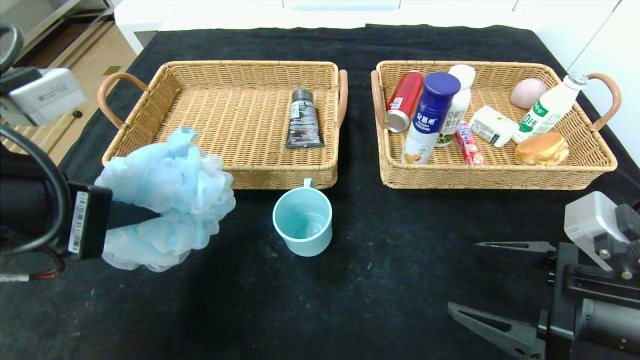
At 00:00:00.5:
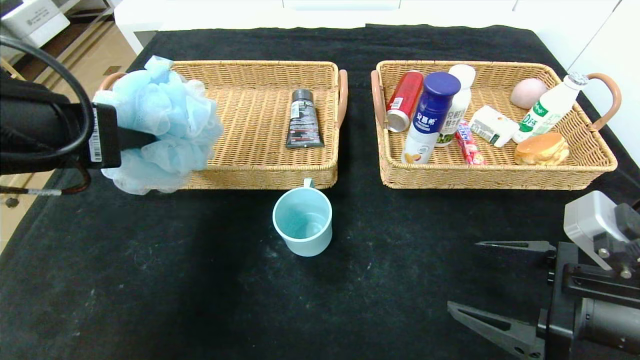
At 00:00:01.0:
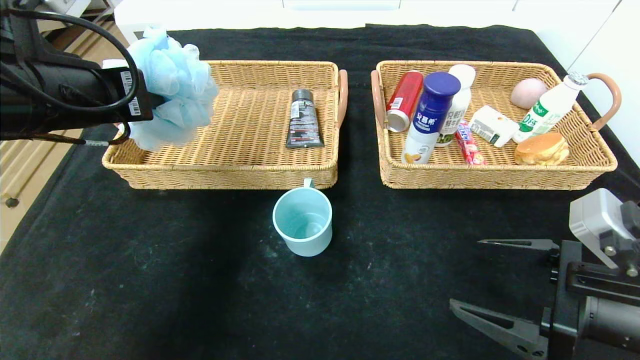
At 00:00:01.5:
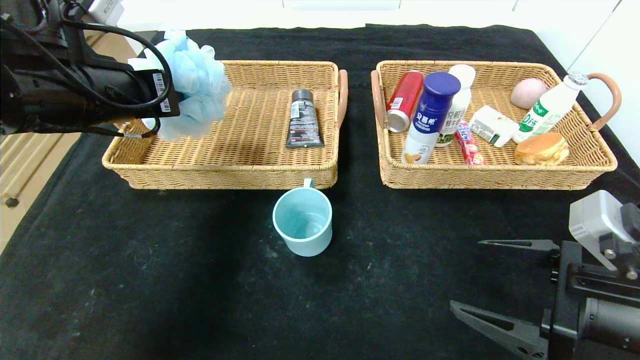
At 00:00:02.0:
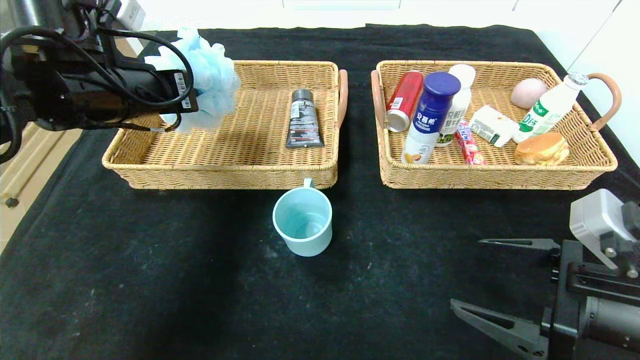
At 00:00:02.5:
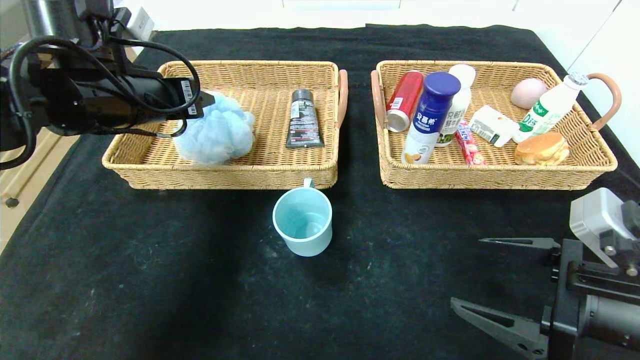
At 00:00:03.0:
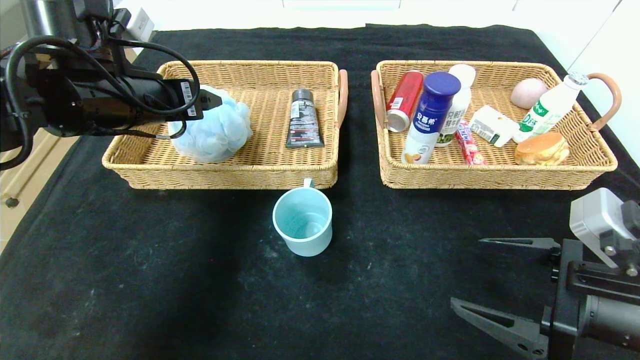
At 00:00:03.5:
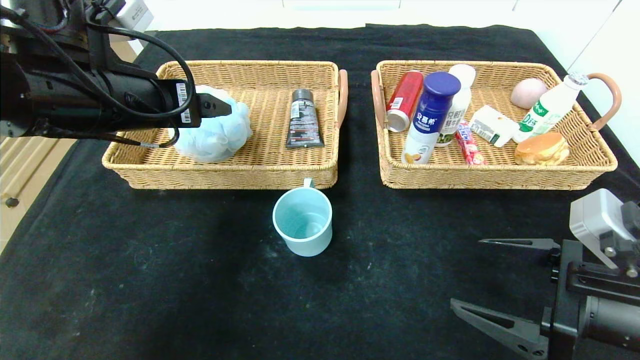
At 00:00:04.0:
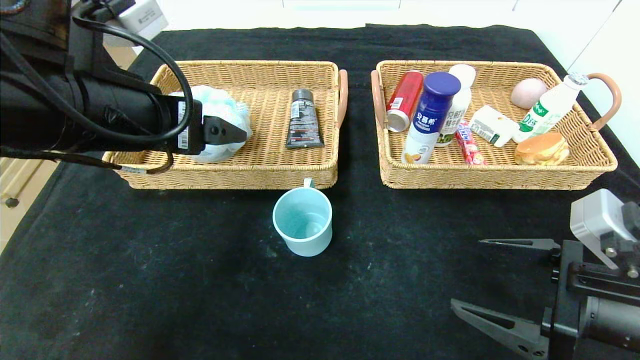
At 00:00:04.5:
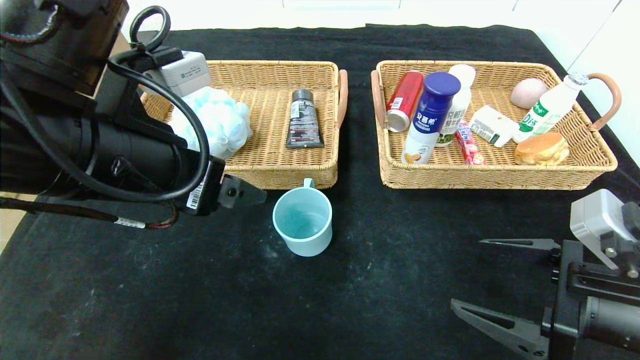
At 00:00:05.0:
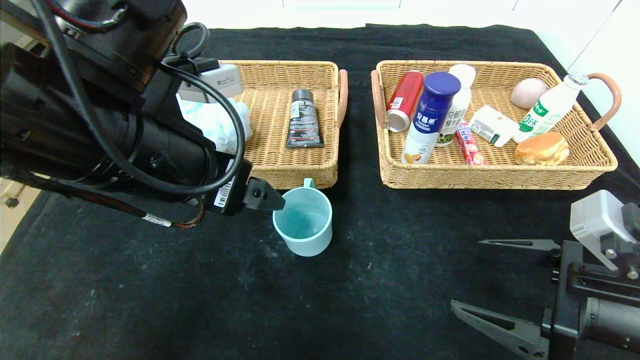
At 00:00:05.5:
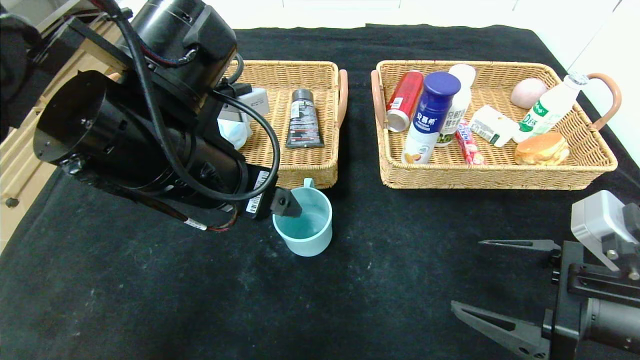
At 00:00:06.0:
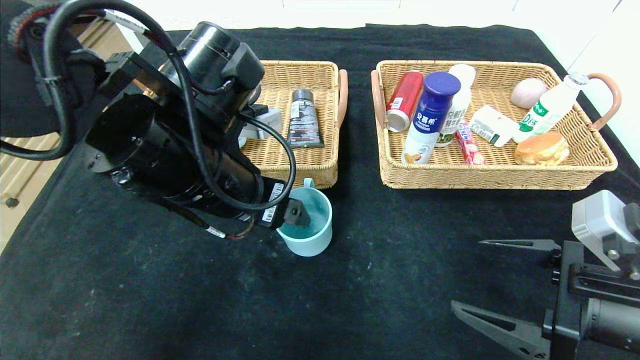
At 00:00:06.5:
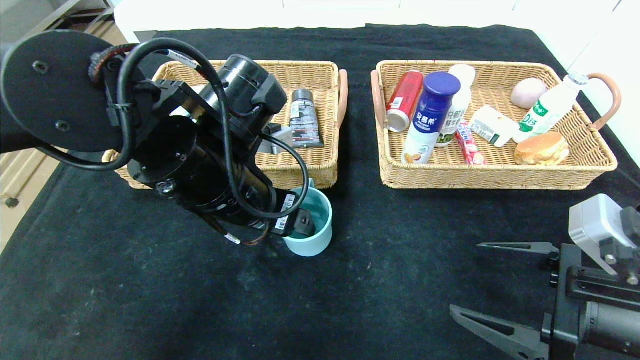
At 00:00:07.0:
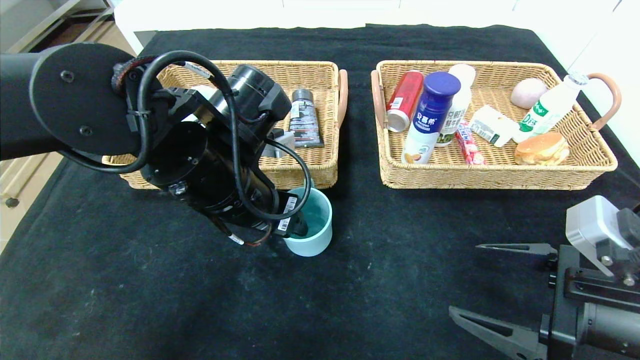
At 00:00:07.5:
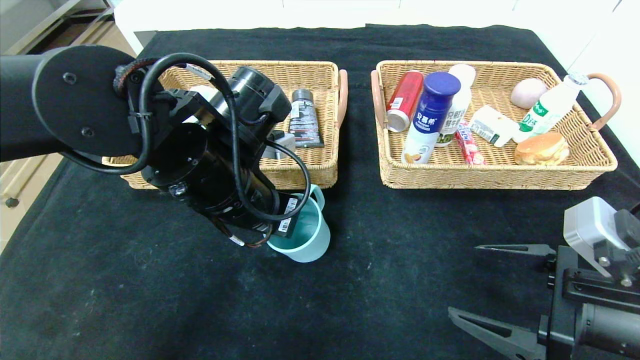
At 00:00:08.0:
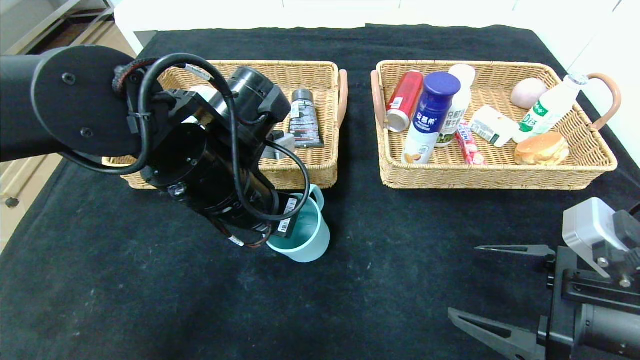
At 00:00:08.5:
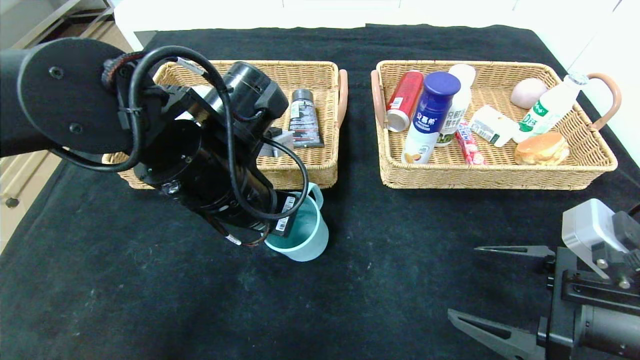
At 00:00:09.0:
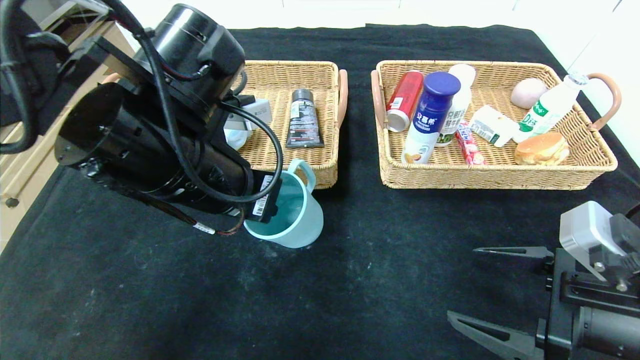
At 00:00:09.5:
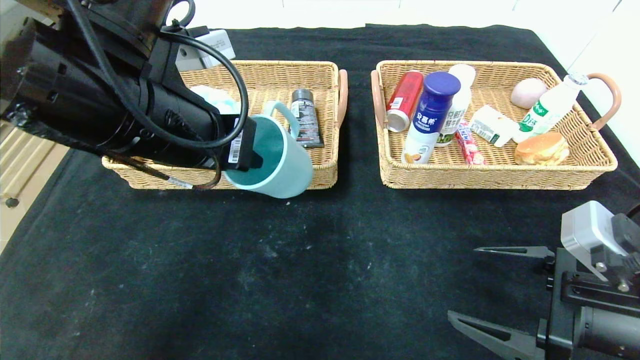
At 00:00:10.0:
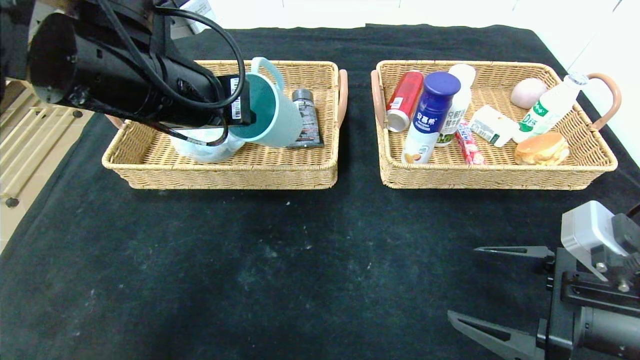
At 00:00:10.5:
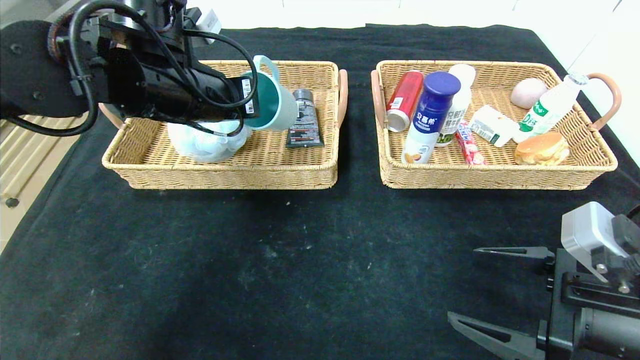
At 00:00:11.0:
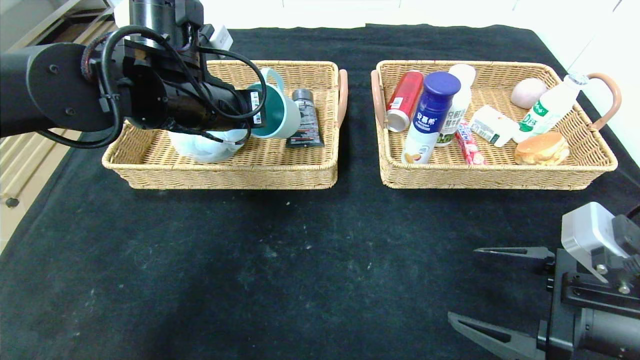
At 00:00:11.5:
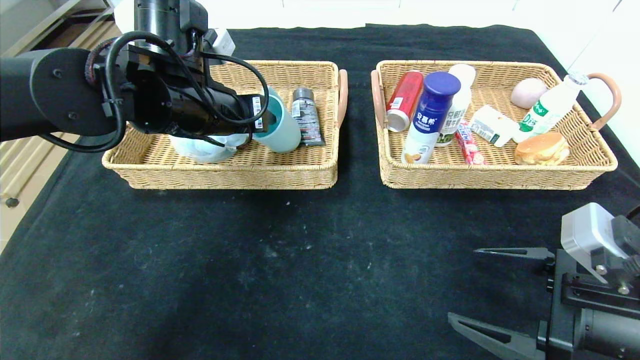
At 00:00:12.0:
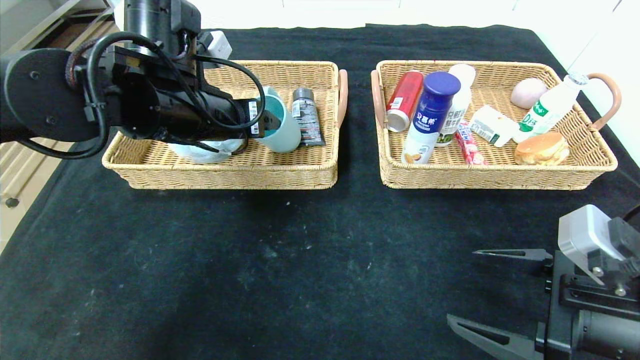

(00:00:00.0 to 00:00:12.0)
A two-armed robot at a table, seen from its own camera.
Step, 00:00:00.0 - 00:00:04.5: Pick up the bath ball and put it in the left basket.
00:00:00.0 - 00:00:02.0: The left gripper is displaced forward by about 15 cm.
00:00:02.0 - 00:00:04.0: The left gripper heads backward, covering about 10 cm, and opens up.
00:00:04.0 - 00:00:06.0: The left gripper heads to the right and downward, covering about 10 cm.
00:00:06.0 - 00:00:08.0: The left gripper closes its fingers.
00:00:08.0 - 00:00:10.0: The left gripper is displaced upward and to the left by some 10 cm.
00:00:10.0 - 00:00:12.0: The left gripper ends up about 5 cm from where it was, and opens.

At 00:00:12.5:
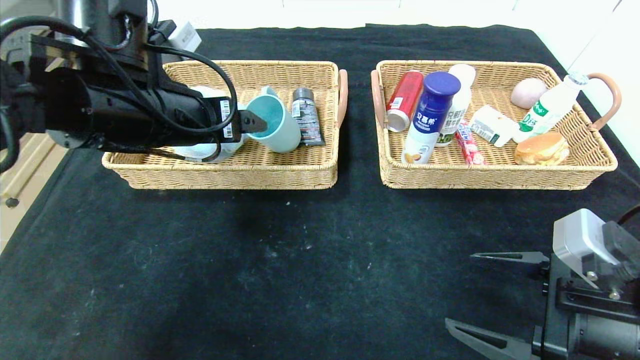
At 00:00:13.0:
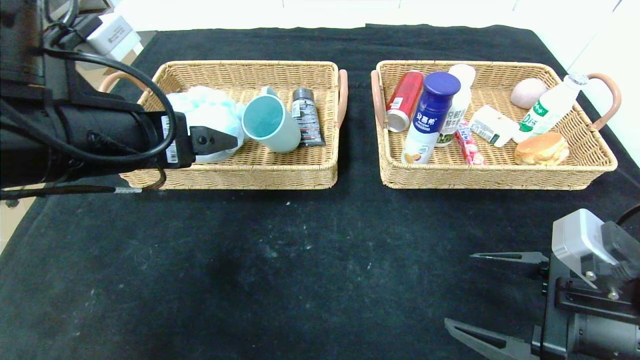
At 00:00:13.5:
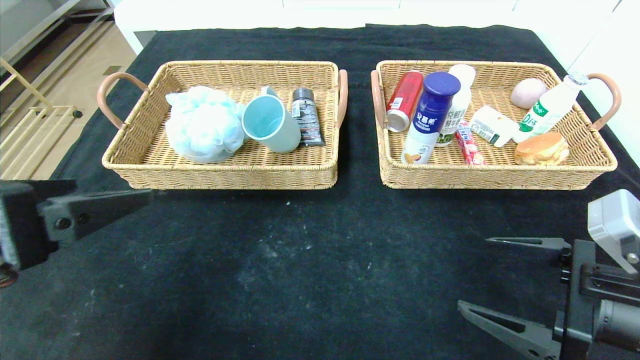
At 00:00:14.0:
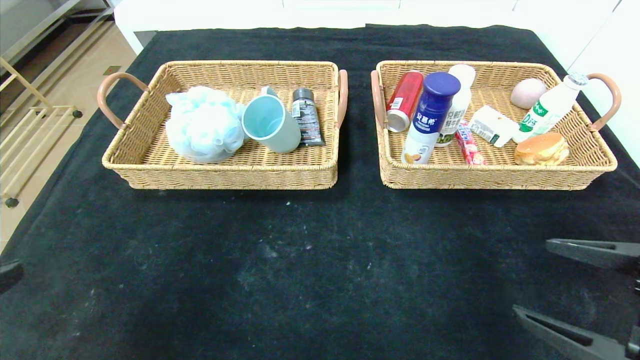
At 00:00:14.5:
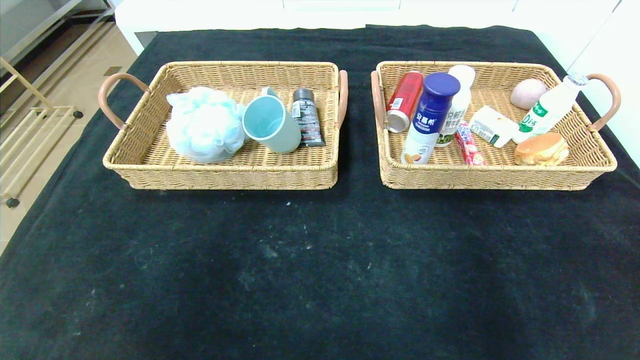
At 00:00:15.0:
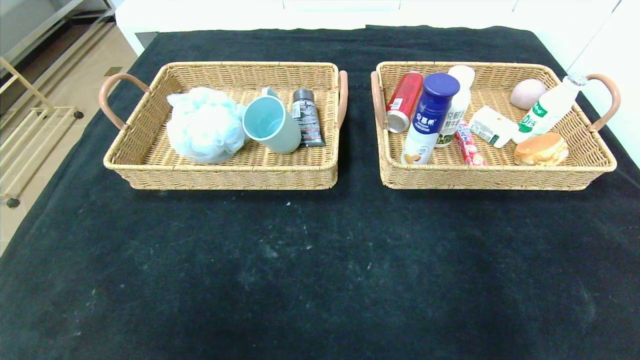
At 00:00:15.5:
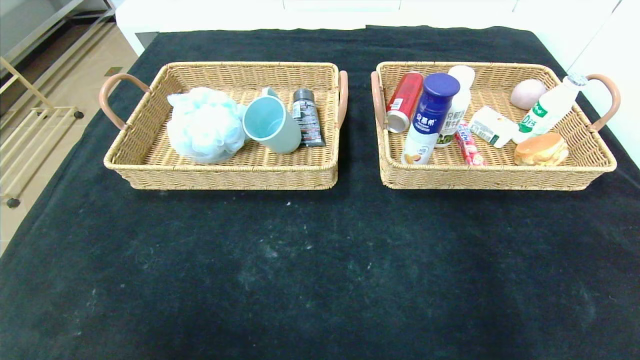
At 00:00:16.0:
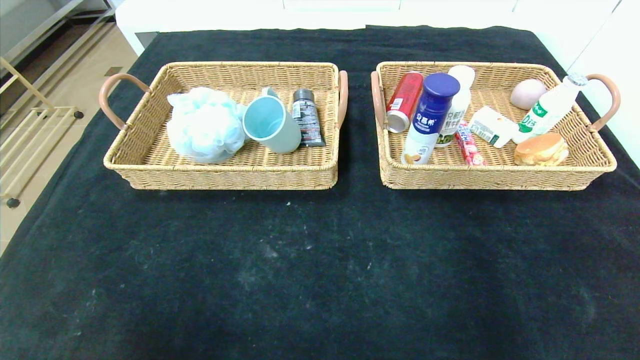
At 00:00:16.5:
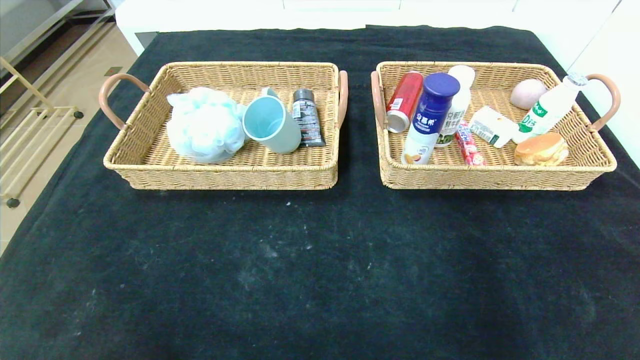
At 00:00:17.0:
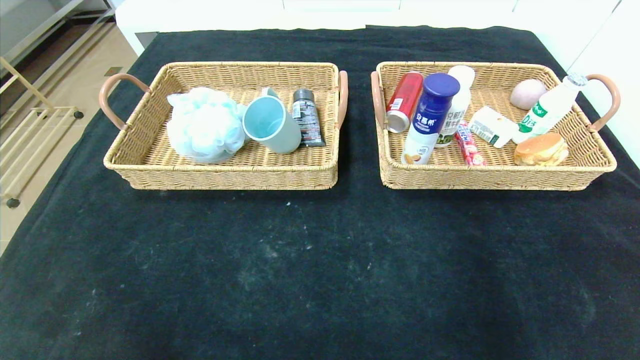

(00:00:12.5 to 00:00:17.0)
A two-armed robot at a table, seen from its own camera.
Step, 00:00:12.5 - 00:00:14.5: Pick up the blue cup and put it in the left basket.
00:00:12.5 - 00:00:14.5: The right gripper heads backward and to the right, covering some 20 cm. Meanwhile the left gripper moves backward, roughly 35 cm.
